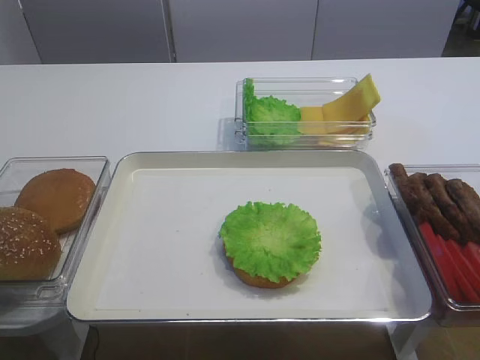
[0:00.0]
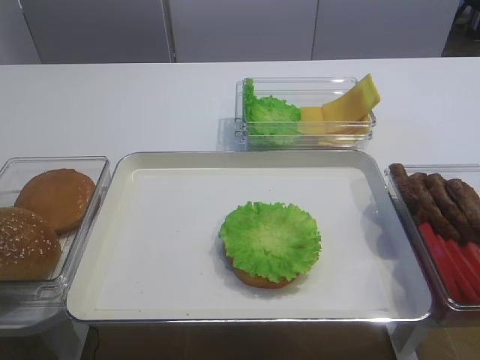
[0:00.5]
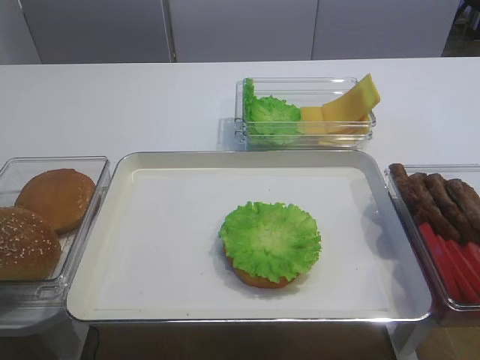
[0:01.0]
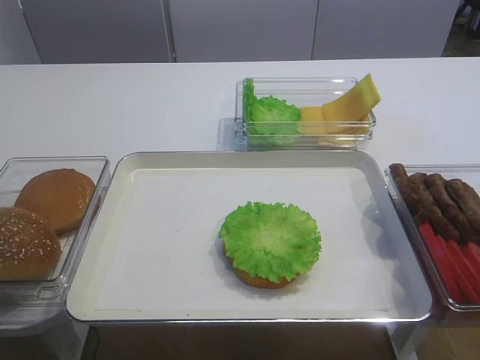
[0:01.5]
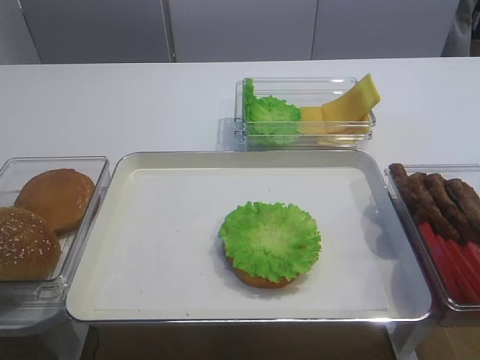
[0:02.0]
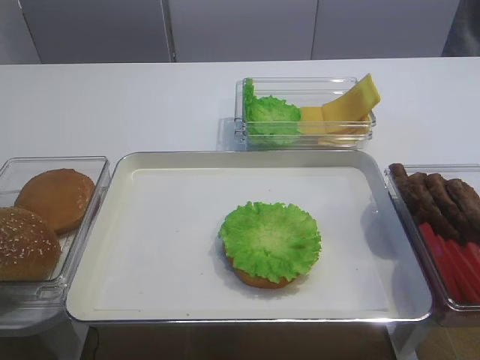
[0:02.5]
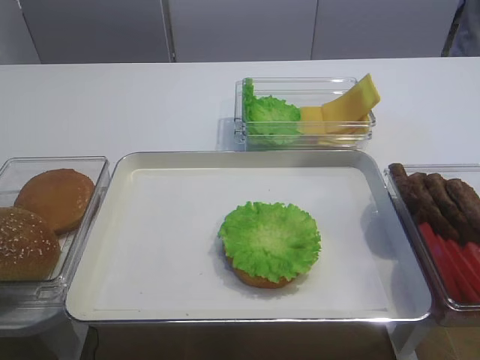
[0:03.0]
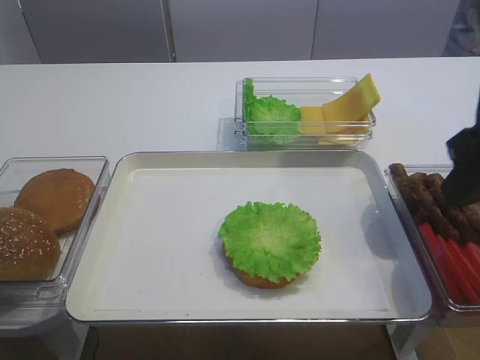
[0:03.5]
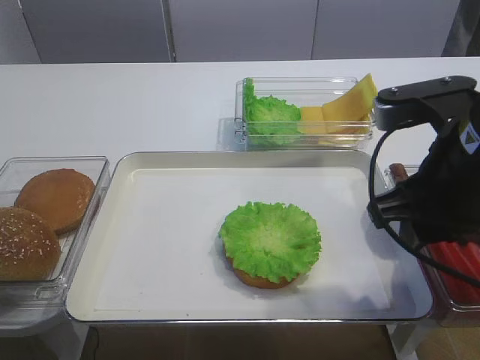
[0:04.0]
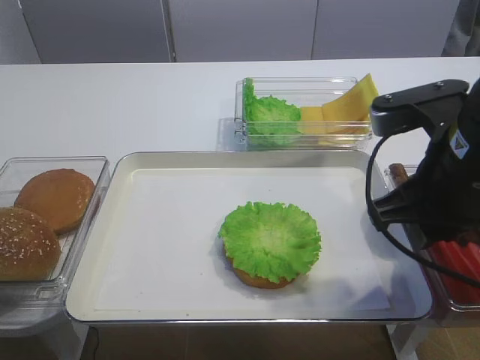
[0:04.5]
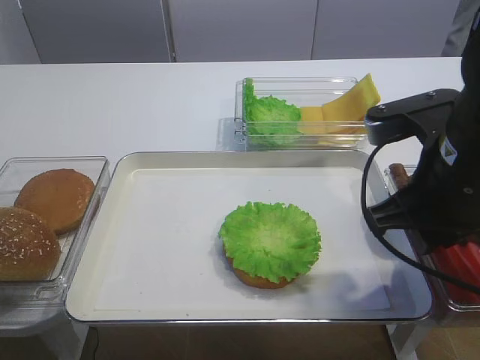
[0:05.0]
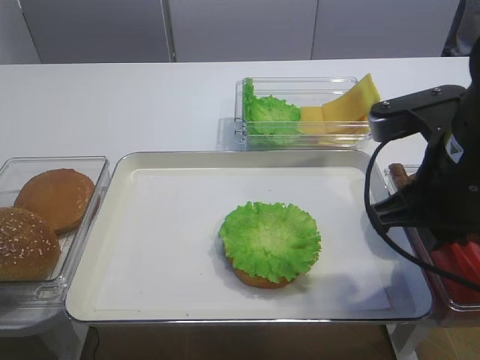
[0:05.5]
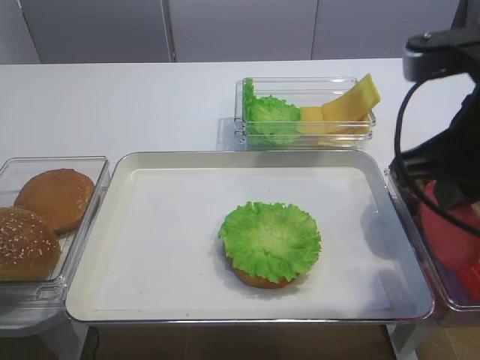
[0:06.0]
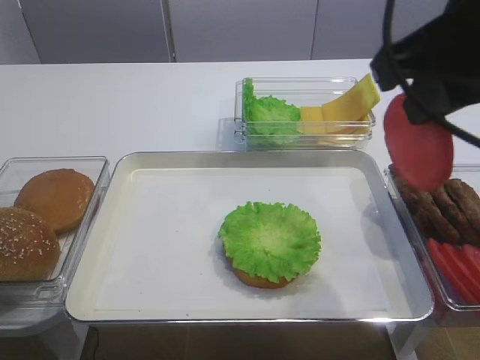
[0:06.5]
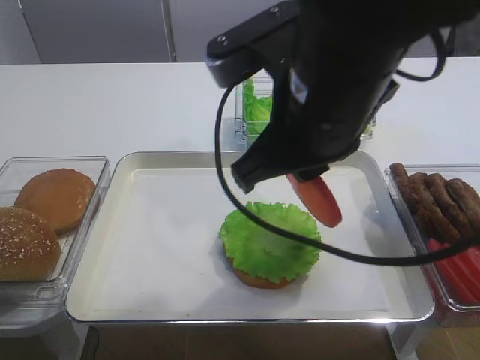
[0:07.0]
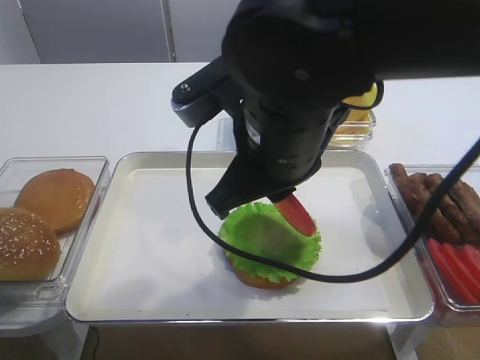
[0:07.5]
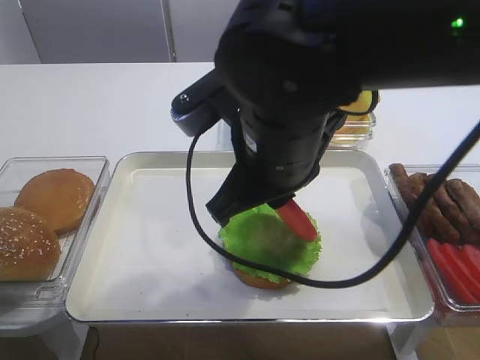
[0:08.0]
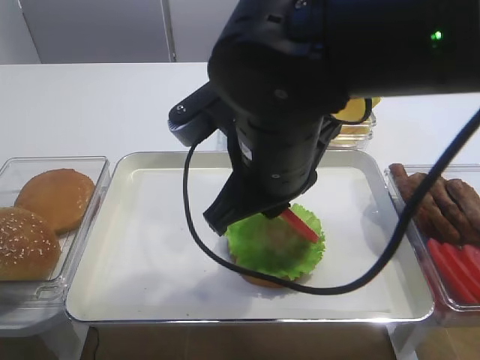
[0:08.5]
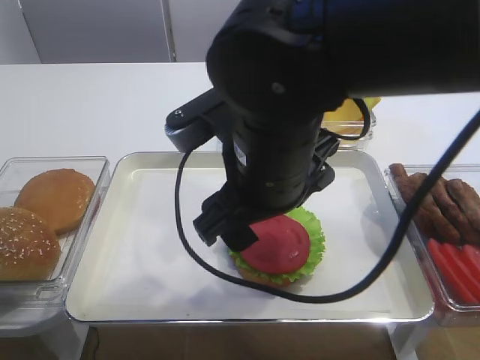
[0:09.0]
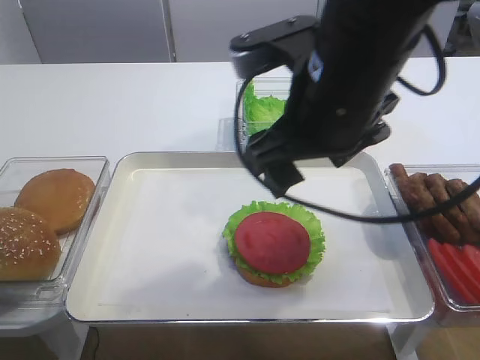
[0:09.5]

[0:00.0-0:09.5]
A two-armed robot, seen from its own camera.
Step, 0.0 to 6.0 s: Pick up the tomato slice with the right gripper.
Step, 6.5 to 9.0 s: Place the tomato slice on the lettuce leaf with the right gripper.
2.0 to 4.0 s: The right gripper moves forward and to the left, approximately 20 cm.
4.0 to 5.5 s: The right gripper closes.
5.5 to 7.5 s: The right gripper goes about 15 cm to the left.
7.5 to 9.5 s: The right gripper changes place by some 5 cm, and opens up.

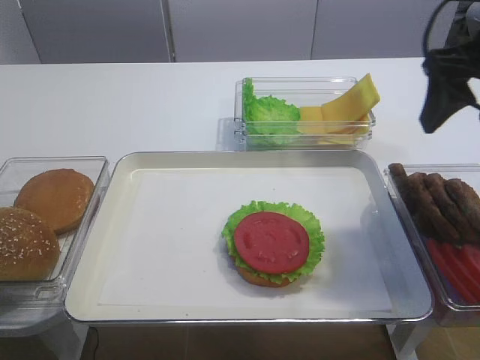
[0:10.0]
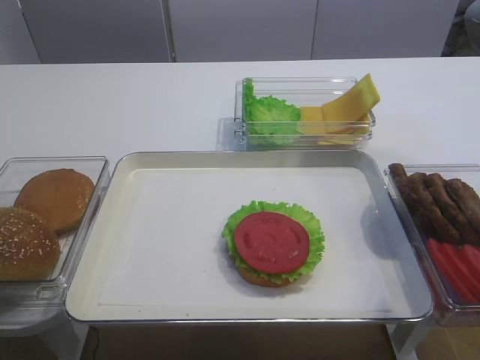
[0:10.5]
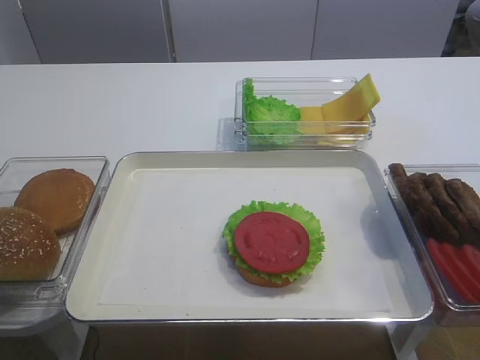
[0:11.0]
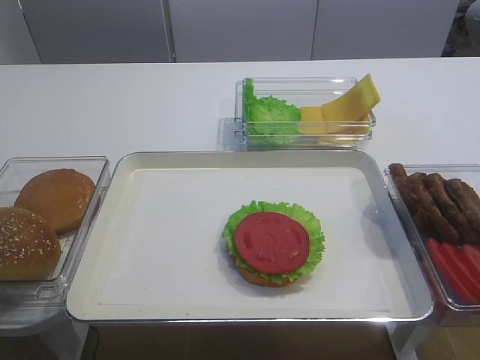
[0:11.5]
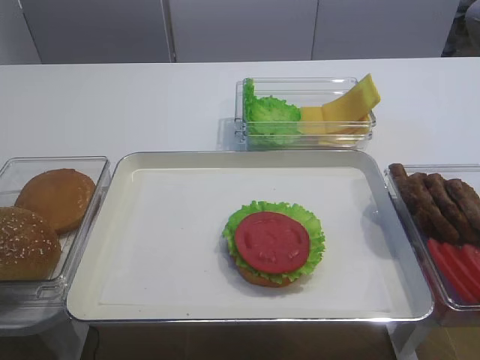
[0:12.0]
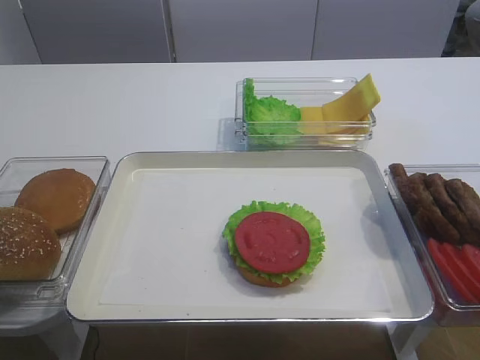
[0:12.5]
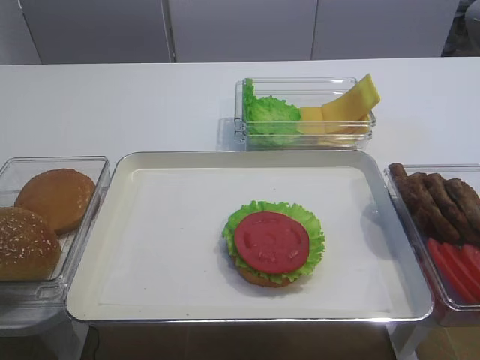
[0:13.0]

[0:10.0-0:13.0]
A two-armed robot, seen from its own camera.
10.0 to 11.5 s: The right gripper heads backward, covering about 30 cm.

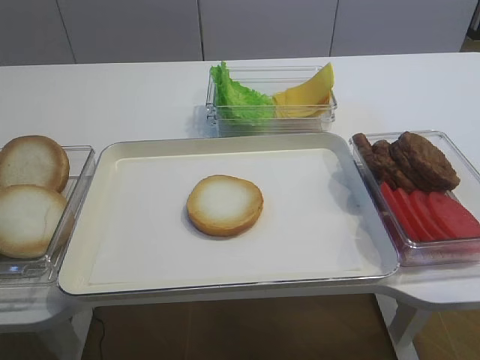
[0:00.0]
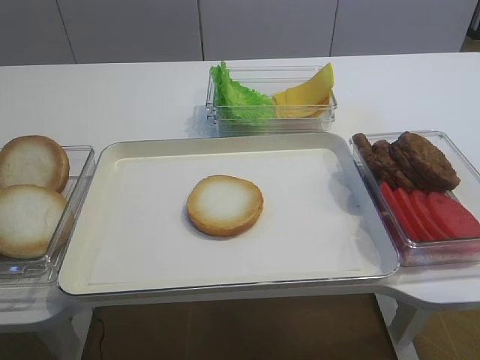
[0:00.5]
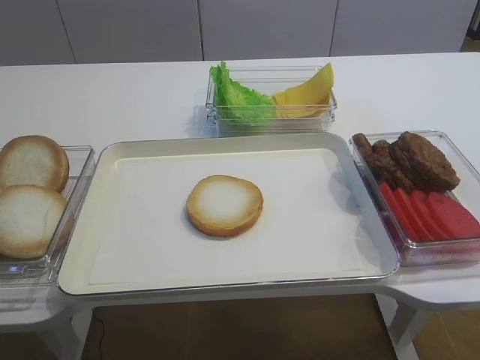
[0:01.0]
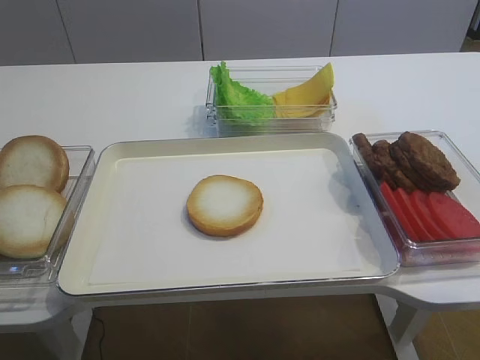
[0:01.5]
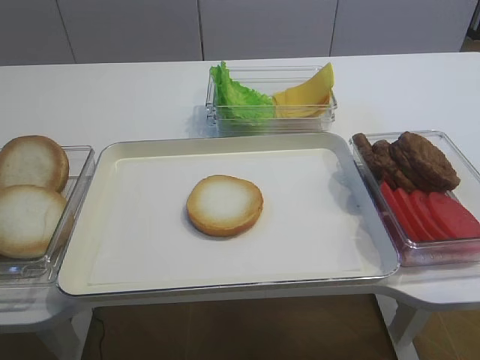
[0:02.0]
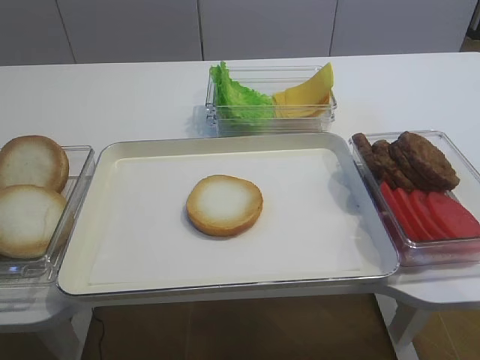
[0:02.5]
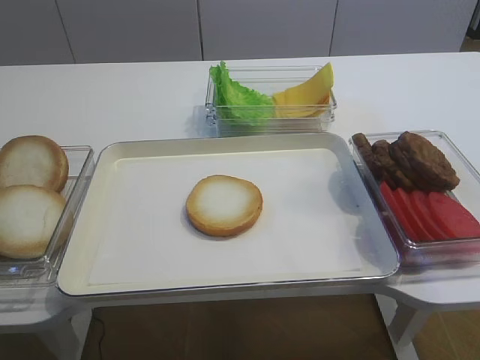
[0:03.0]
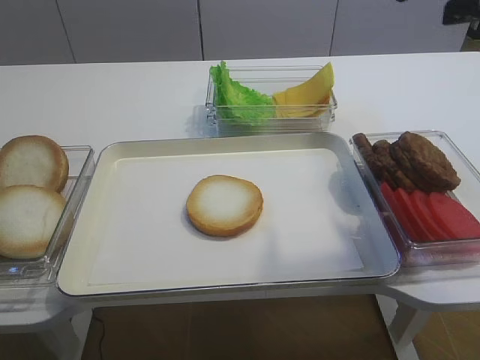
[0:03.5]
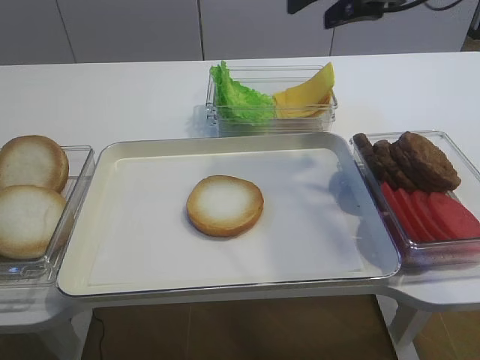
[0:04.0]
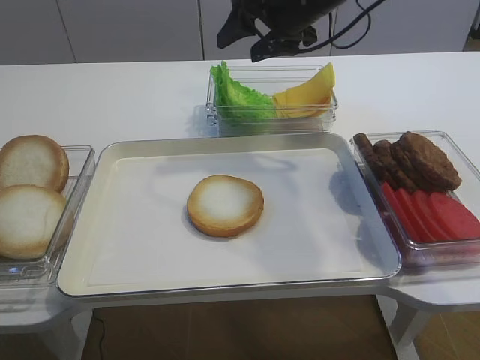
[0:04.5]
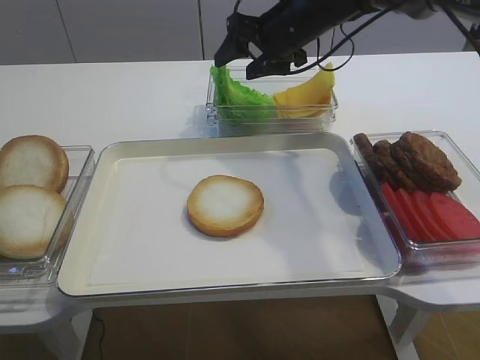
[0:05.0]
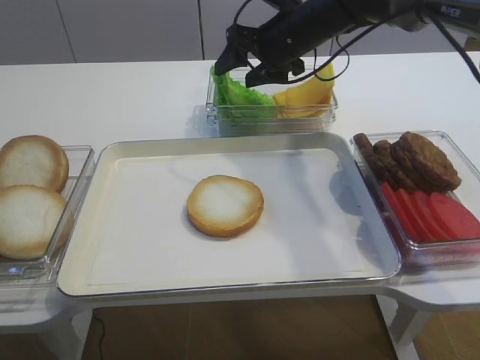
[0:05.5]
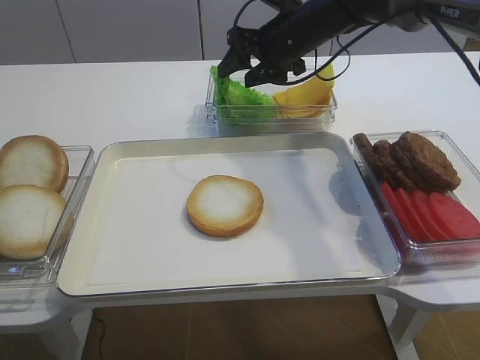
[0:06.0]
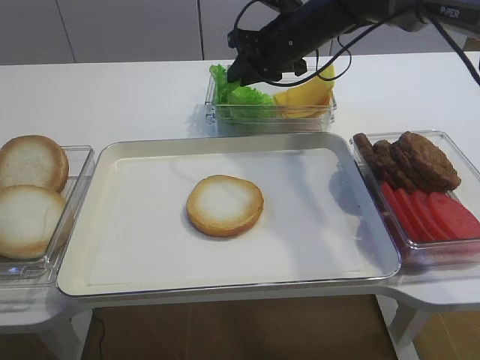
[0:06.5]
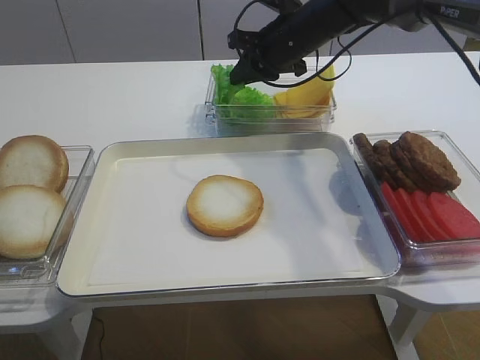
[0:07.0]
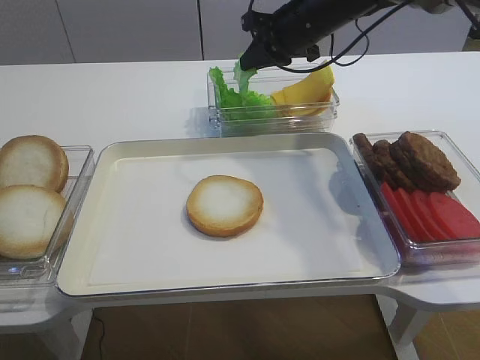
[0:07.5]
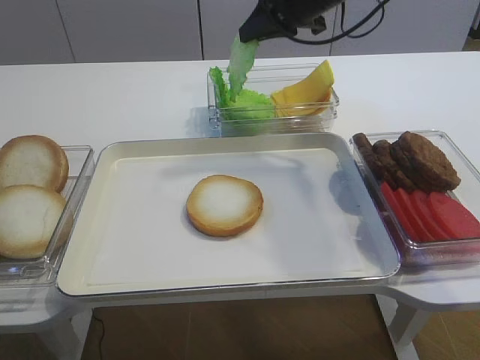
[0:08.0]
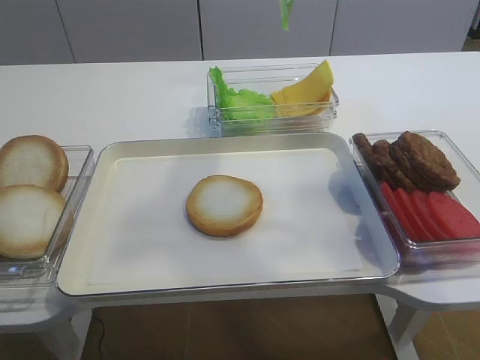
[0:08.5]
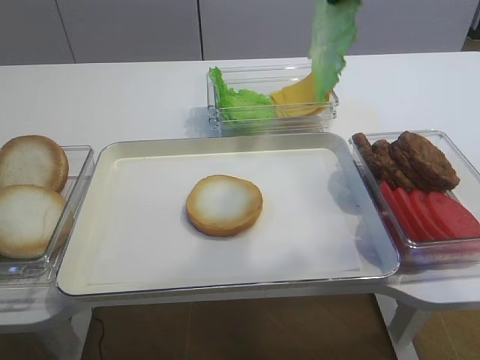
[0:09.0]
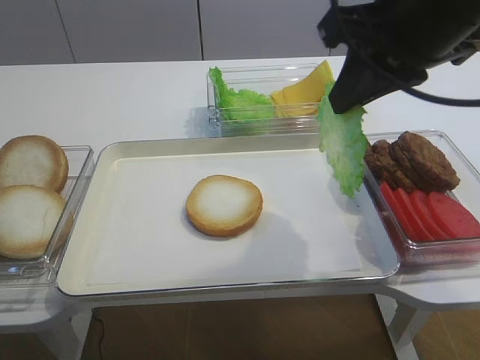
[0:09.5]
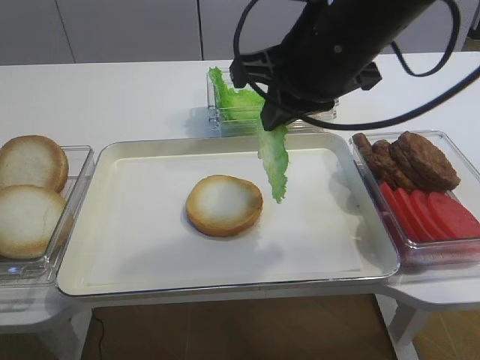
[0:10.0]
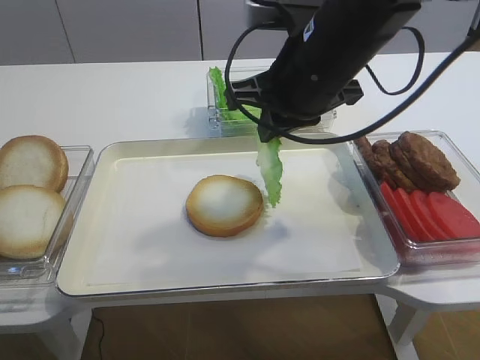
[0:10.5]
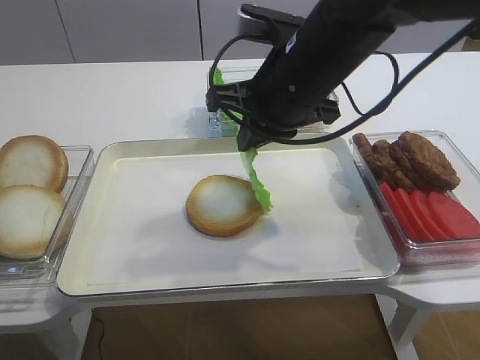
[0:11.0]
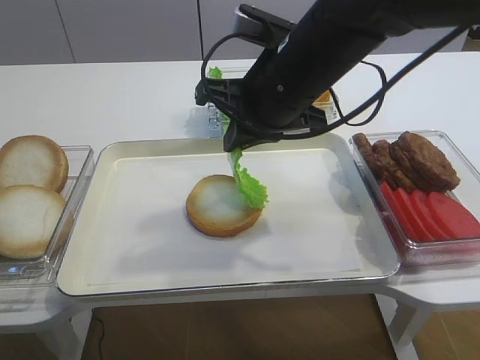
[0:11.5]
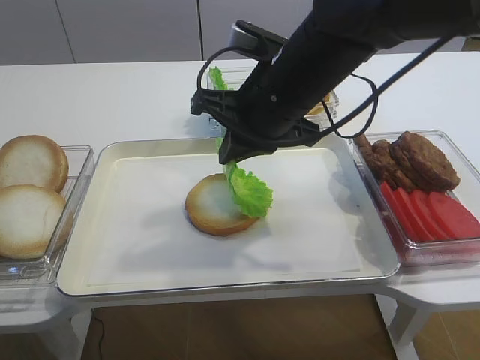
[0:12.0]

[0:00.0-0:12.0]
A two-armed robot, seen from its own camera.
Step, 0.0 to 7.5 s: Pick up the lettuce leaf with the right gripper.
2.0 to 4.0 s: The right gripper travels forward by about 40 cm.
4.0 to 6.0 s: The right gripper is displaced downward, to the left and forward by some 20 cm.
6.0 to 8.0 s: The right gripper shifts roughly 5 cm upward, and closes.
8.0 to 10.0 s: The right gripper goes roughly 20 cm backward.
10.0 to 12.0 s: The right gripper heads downward, covering approximately 5 cm.

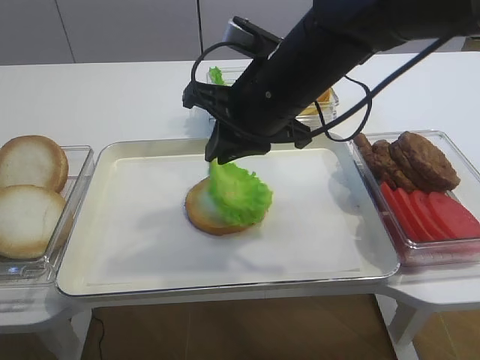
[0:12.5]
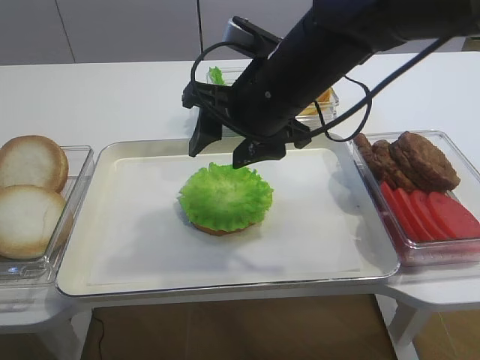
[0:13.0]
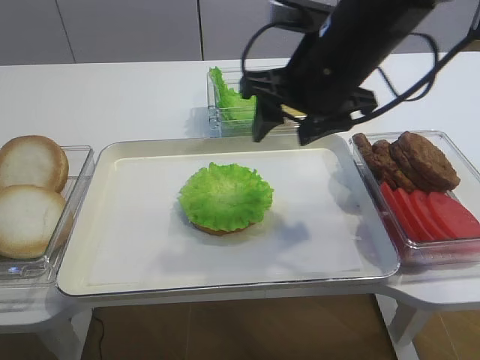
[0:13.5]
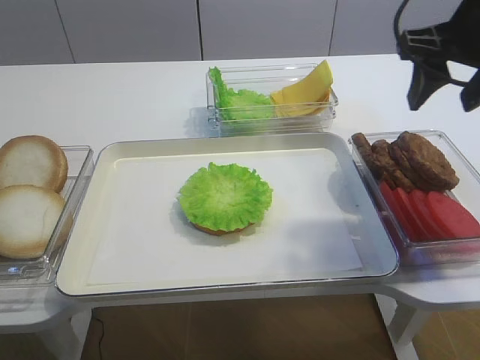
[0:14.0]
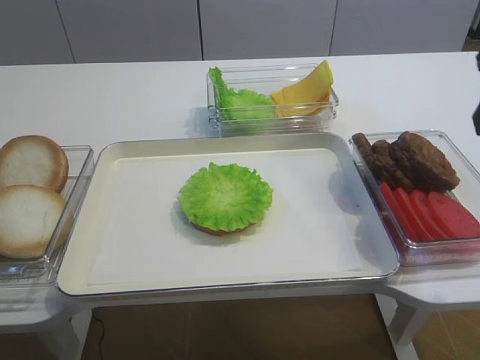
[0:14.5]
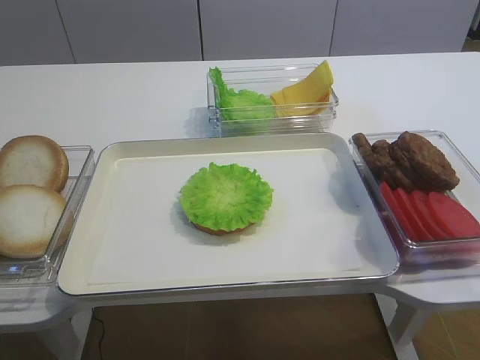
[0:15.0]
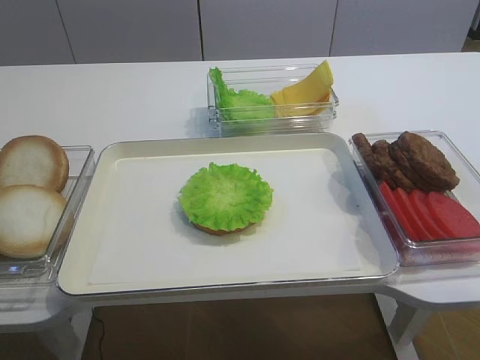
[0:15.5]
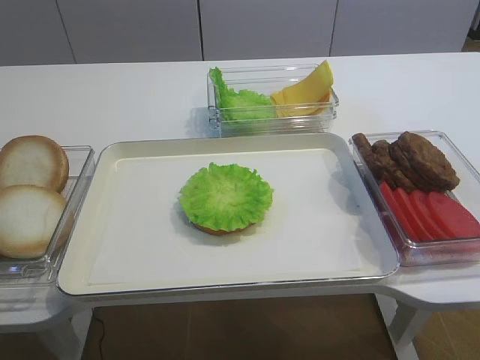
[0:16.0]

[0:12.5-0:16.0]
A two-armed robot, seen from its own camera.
12.5 to 14.5 s: The right gripper moves to the right, upward and backward, about 25 cm, and opens its fingers.
14.5 to 16.0 s: The right gripper travels backward by about 25 cm.
